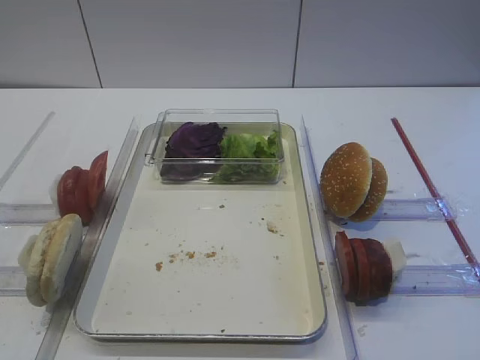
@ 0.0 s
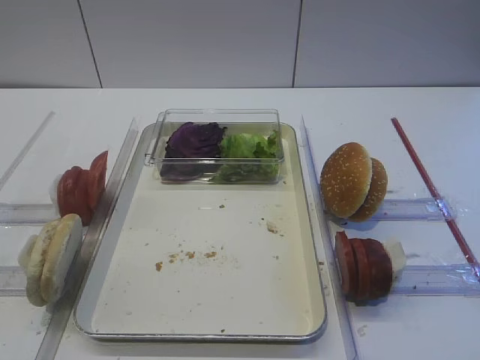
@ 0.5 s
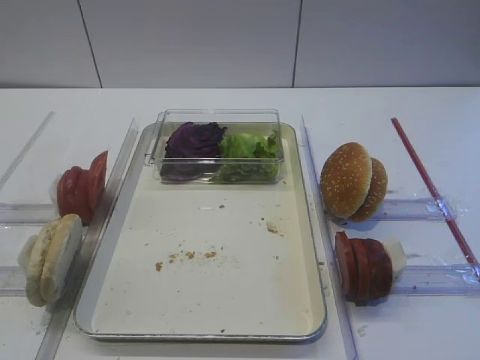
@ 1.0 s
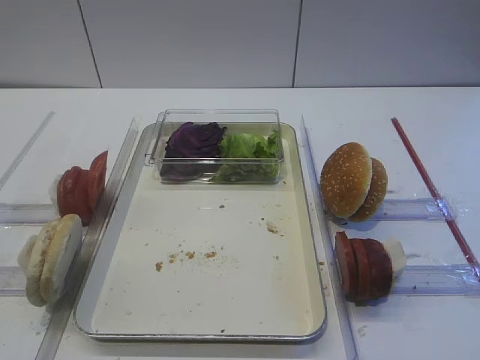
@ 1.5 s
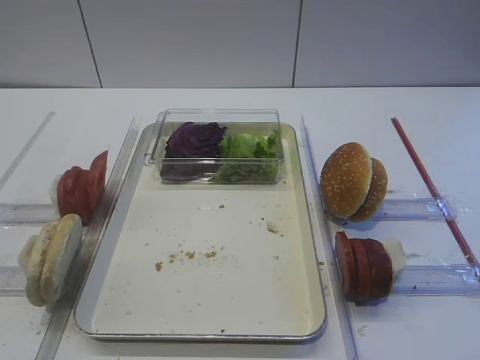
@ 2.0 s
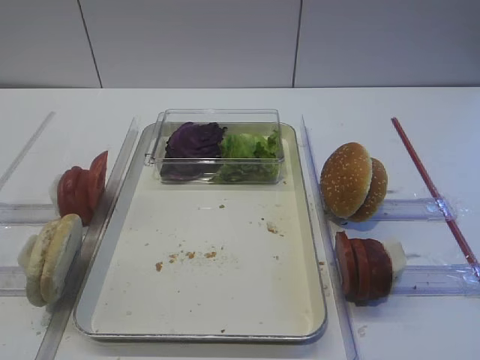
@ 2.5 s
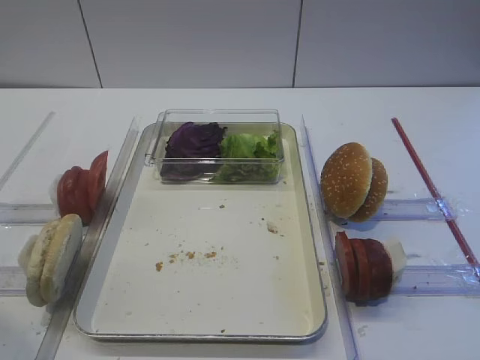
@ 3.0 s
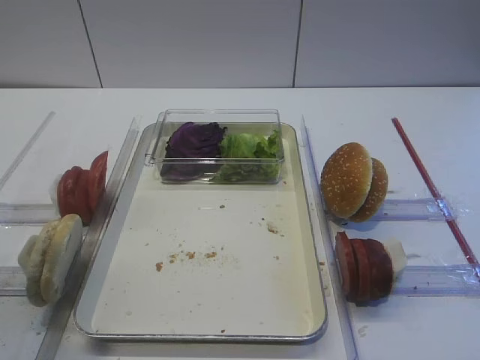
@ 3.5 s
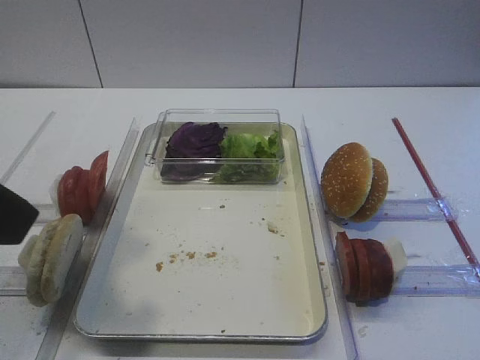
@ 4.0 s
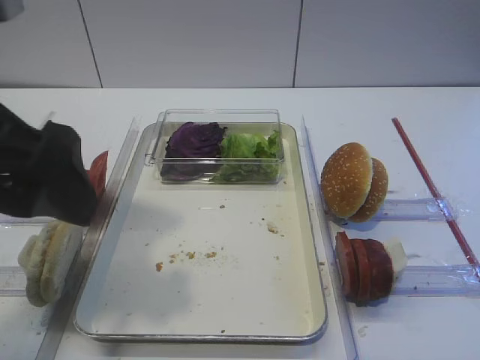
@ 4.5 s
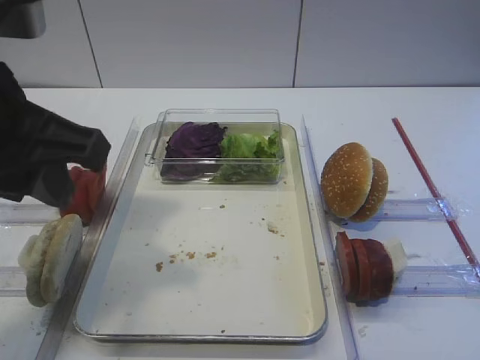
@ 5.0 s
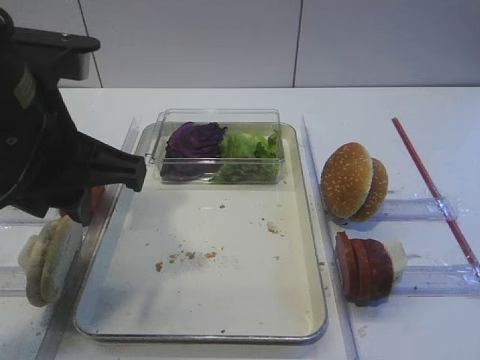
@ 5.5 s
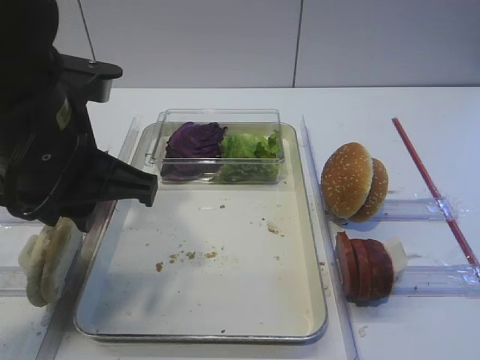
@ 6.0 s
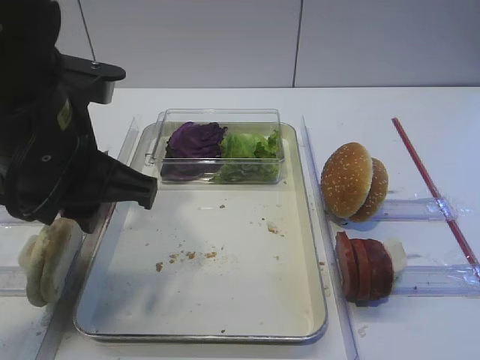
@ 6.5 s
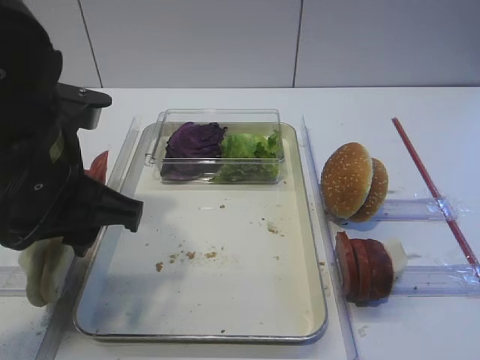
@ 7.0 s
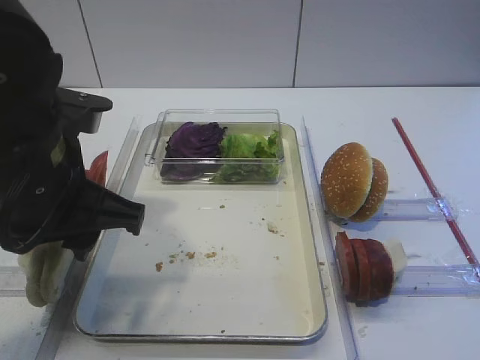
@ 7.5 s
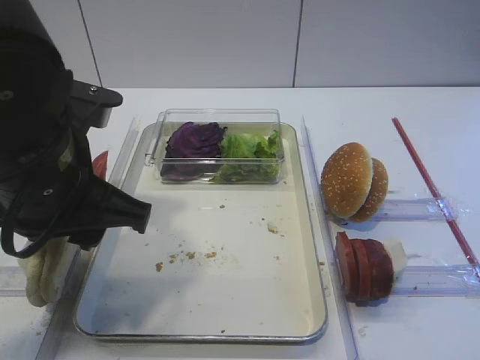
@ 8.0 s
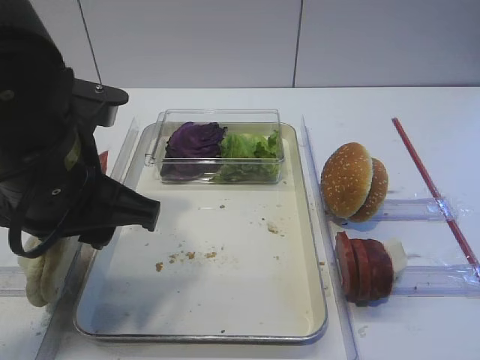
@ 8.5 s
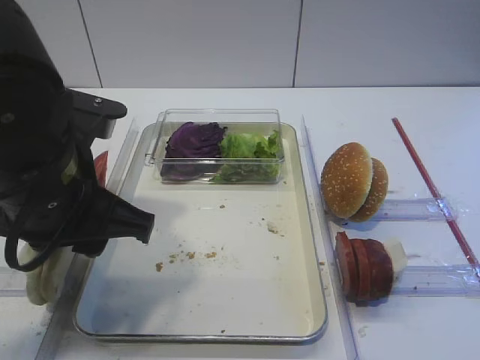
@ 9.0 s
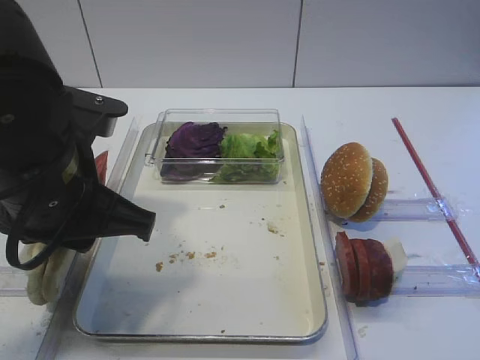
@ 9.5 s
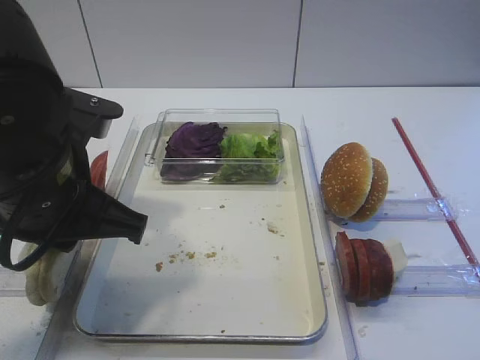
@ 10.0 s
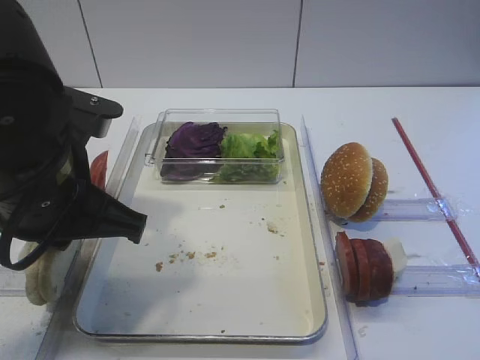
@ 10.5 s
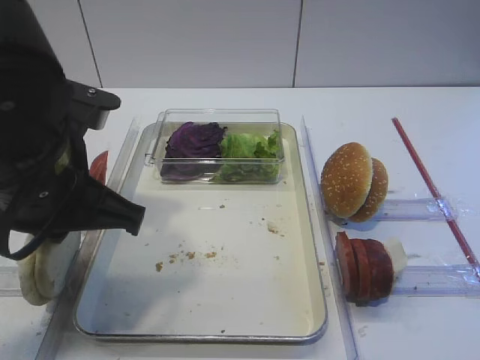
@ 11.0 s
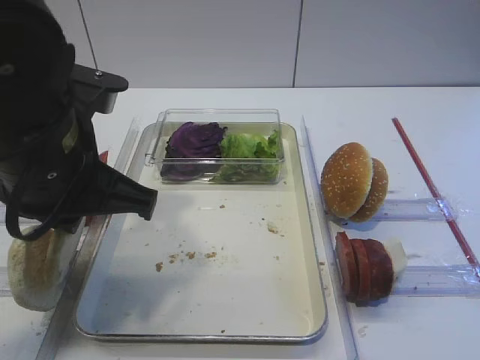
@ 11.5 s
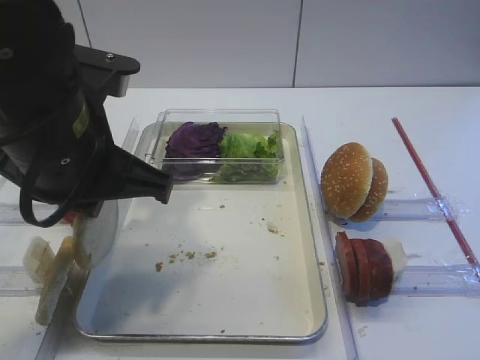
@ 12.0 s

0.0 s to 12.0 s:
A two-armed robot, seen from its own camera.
Step, 0.0 to 11.5 s: Pick up the bread slice with the left gripper.
2.0 to 4.0 s: The left gripper moves forward and upward, approximately 15 cm.
4.0 to 6.0 s: The left gripper shifts roughly 15 cm forward, to the right and downward, and closes its fingers.
6.0 to 8.0 s: The grippers make only small movements.
8.0 to 10.0 s: The left gripper closes.
10.0 to 12.0 s: The grippers move only a little.

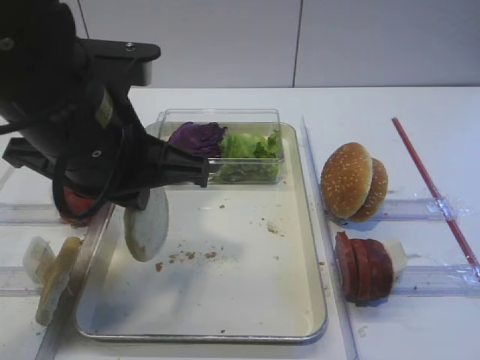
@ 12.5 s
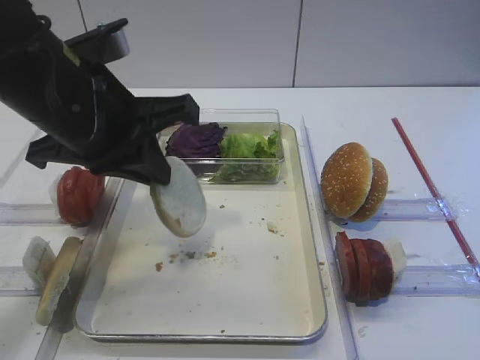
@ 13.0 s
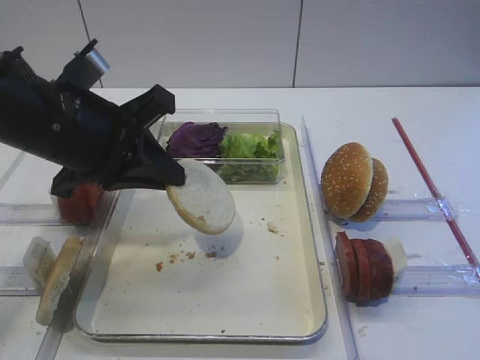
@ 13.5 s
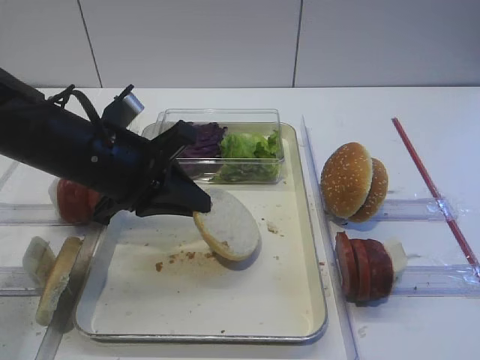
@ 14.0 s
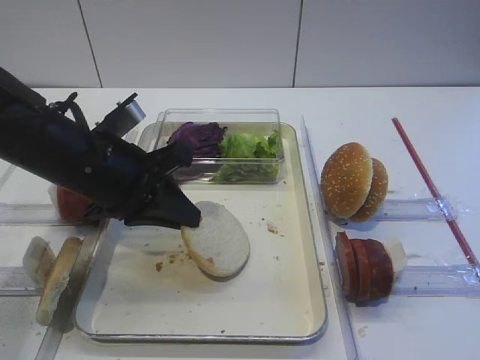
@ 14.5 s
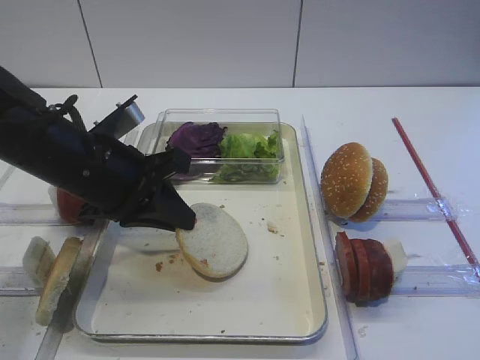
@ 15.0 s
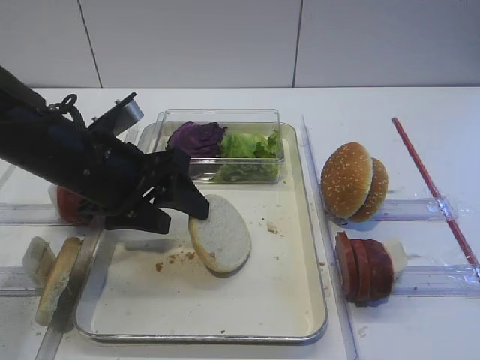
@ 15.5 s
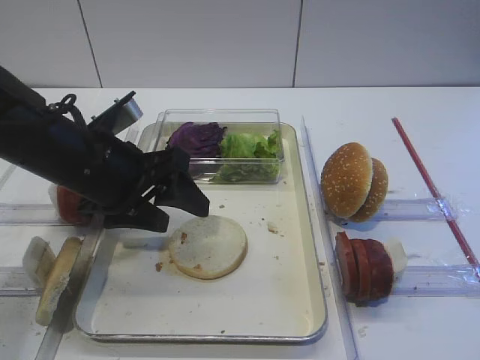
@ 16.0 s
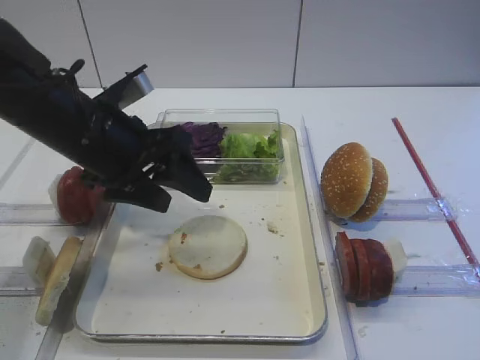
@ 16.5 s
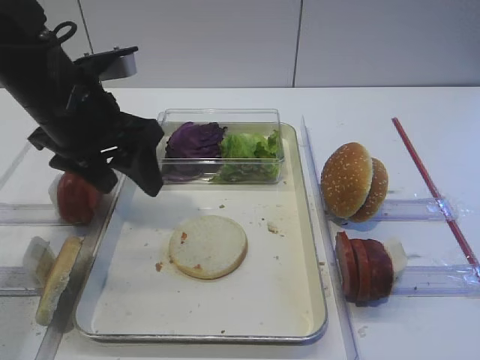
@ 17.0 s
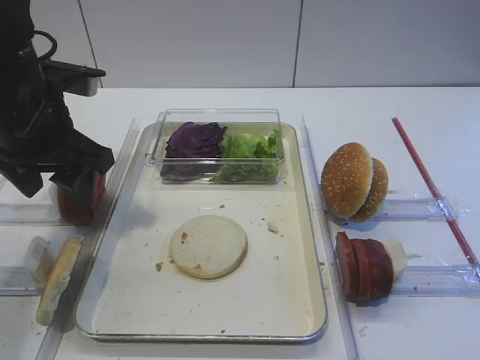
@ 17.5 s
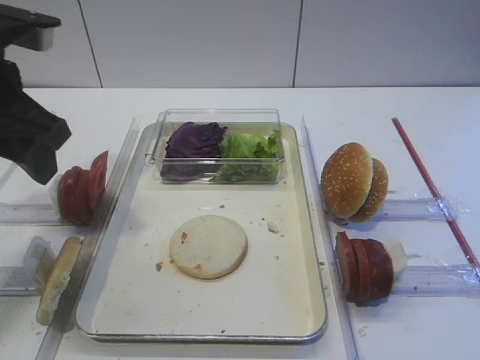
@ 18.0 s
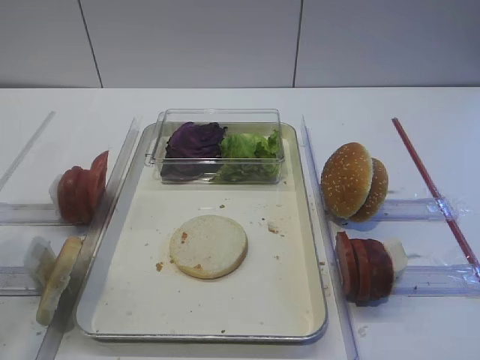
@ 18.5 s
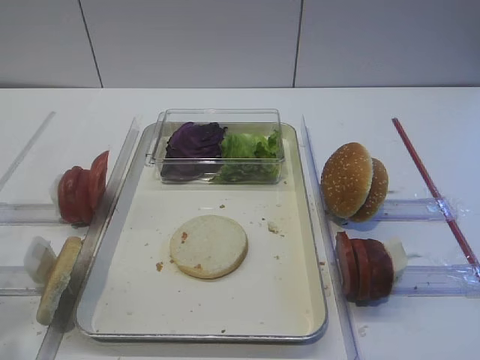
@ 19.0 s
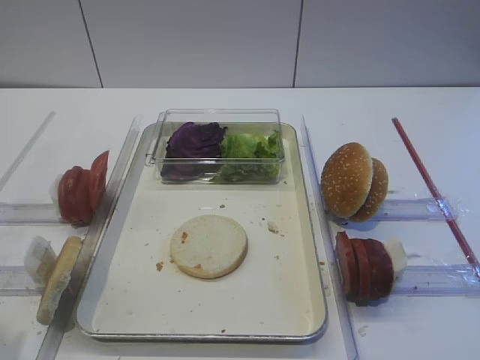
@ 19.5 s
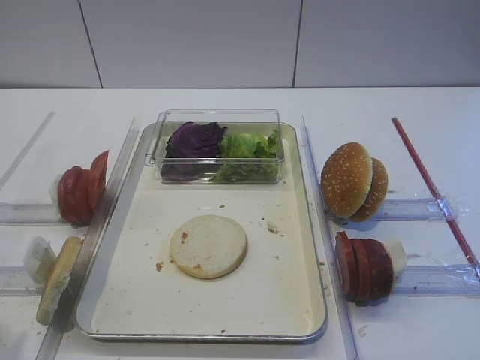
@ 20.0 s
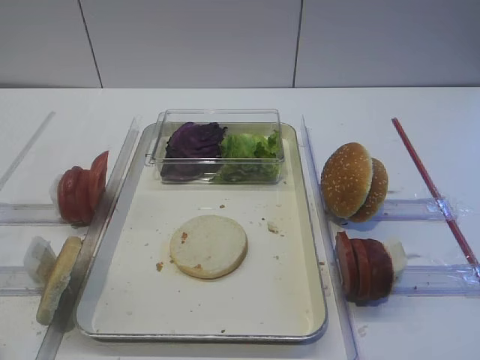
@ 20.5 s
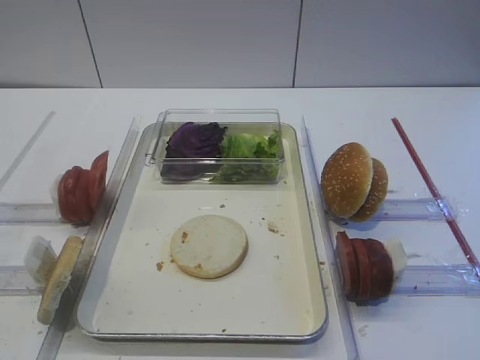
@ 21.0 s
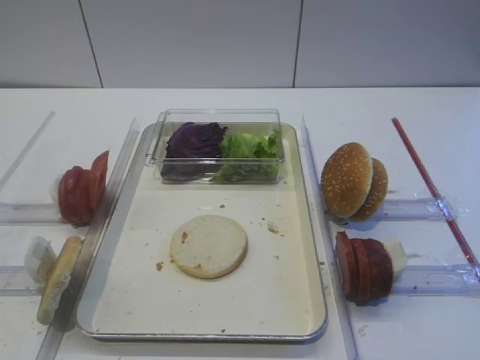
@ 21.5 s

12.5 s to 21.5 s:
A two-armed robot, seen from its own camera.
Step, 12.5 to 16.0 s: Place the bread slice on the tray with the left gripper.
12.5 to 14.5 s: The left gripper travels downward and forward by roughly 10 cm.
14.5 to 17.0 s: The left gripper is displaced upward by roughly 5 cm, and opens its fingers.
17.0 to 19.5 s: The left gripper goes some 30 cm backward and to the left.

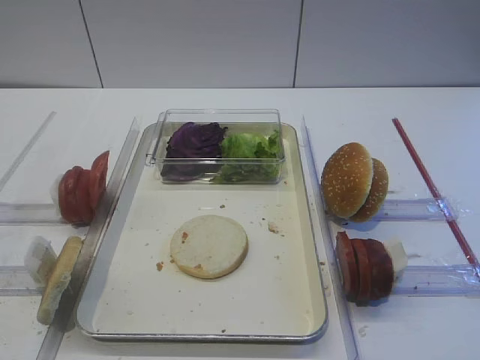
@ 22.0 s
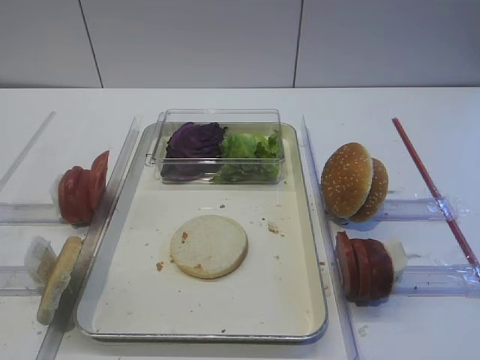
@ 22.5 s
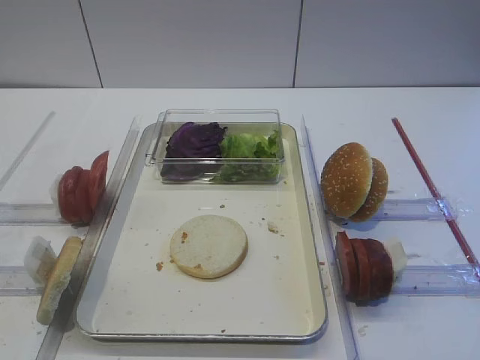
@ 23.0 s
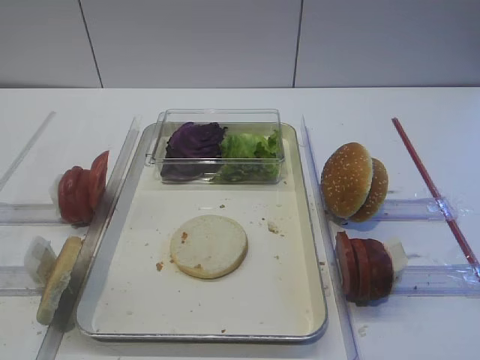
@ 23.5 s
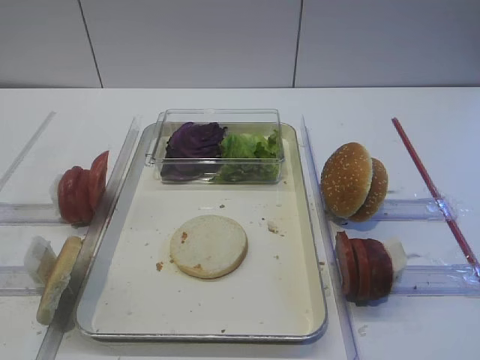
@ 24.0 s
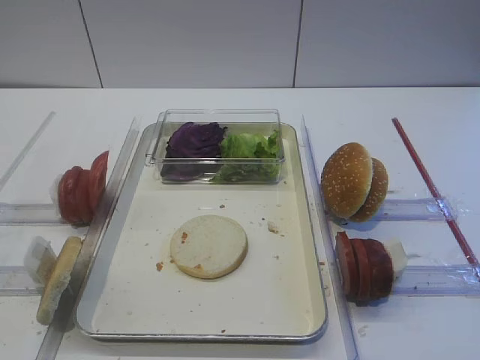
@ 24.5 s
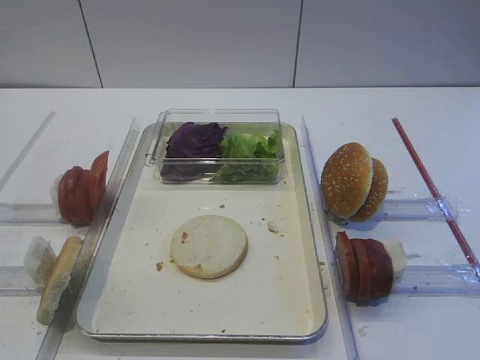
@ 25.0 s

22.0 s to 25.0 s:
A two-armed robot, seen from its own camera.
23.5 to 25.0 s: Neither gripper changes place.

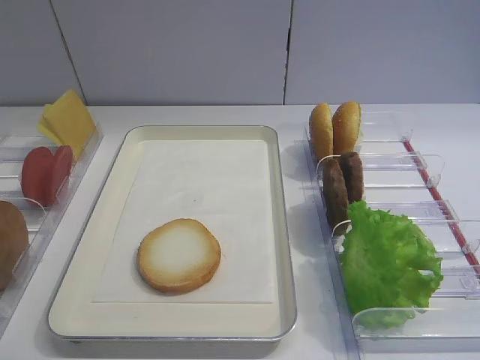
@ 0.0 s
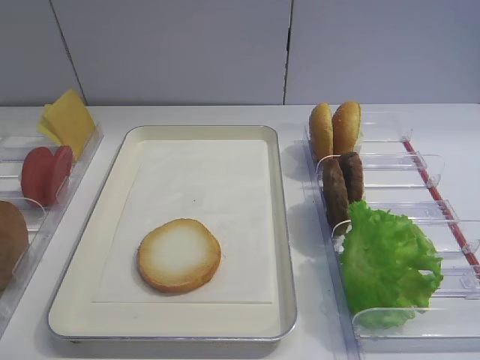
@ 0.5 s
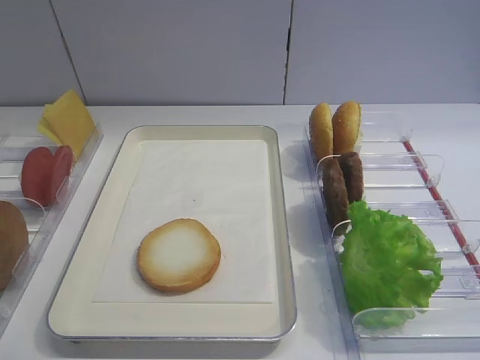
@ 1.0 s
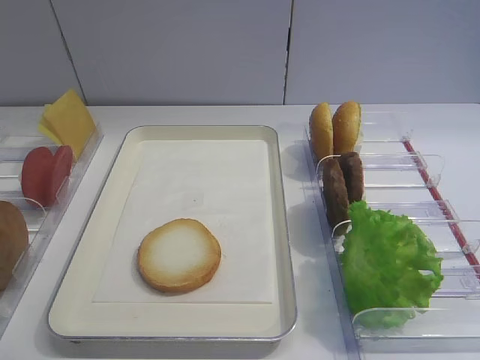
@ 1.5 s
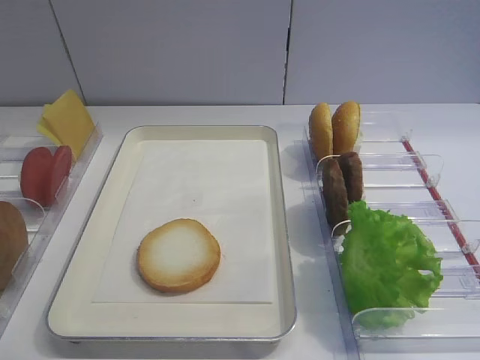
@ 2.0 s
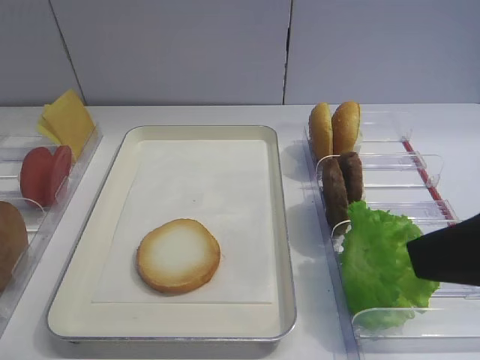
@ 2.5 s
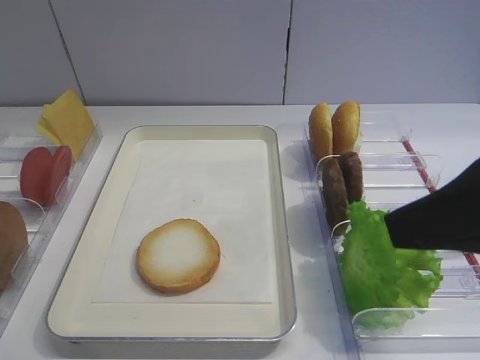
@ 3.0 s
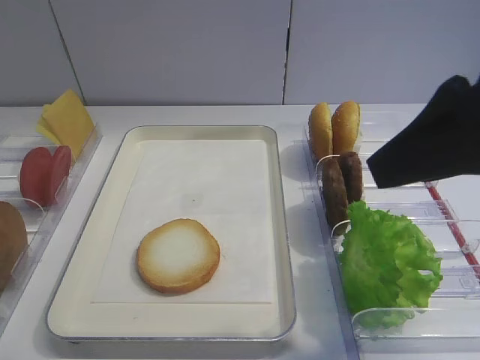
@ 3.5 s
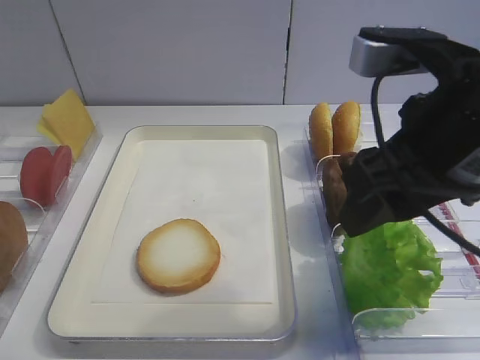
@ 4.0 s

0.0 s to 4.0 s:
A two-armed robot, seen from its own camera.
2.0 to 4.0 s: The right gripper is displaced forward and to the left by approximately 15 cm.
